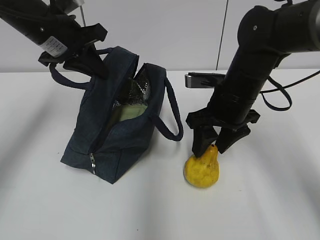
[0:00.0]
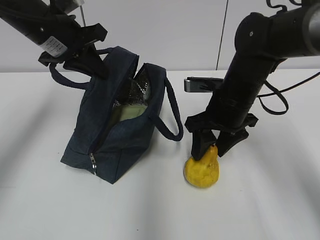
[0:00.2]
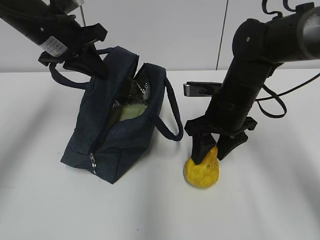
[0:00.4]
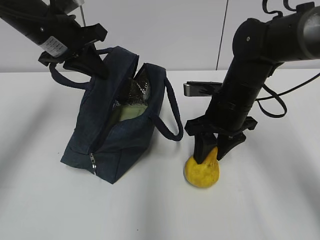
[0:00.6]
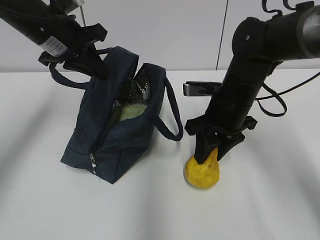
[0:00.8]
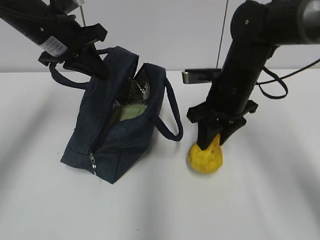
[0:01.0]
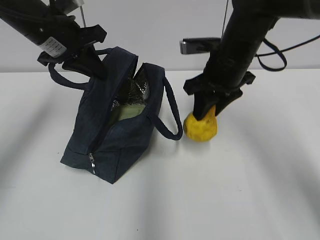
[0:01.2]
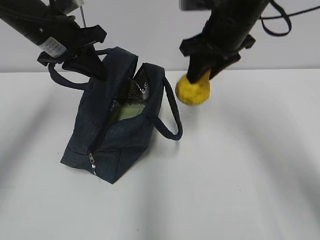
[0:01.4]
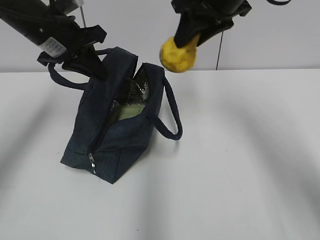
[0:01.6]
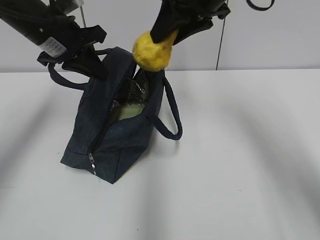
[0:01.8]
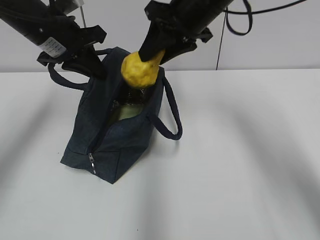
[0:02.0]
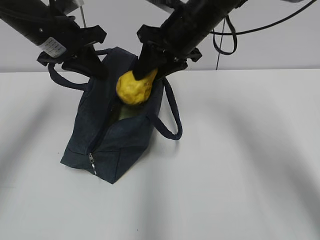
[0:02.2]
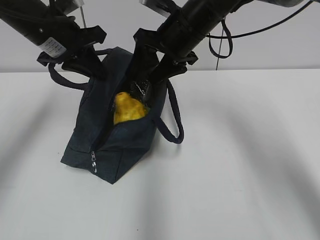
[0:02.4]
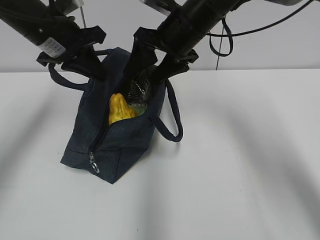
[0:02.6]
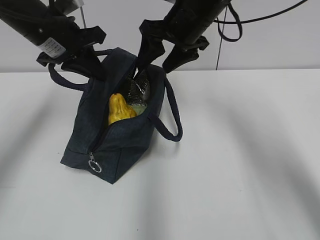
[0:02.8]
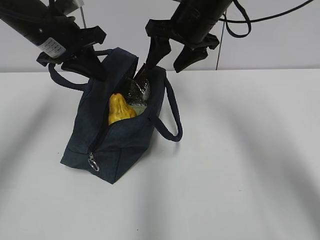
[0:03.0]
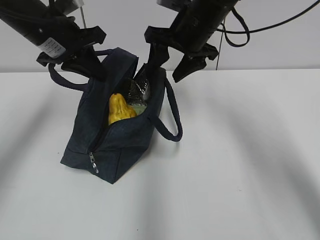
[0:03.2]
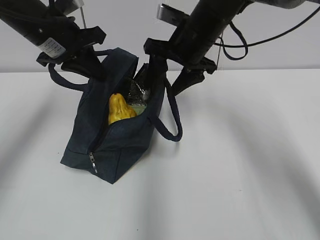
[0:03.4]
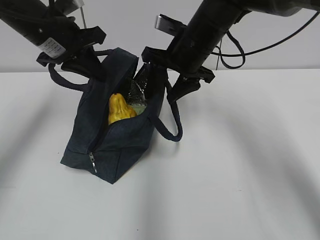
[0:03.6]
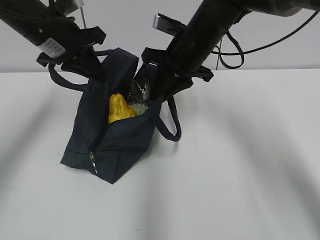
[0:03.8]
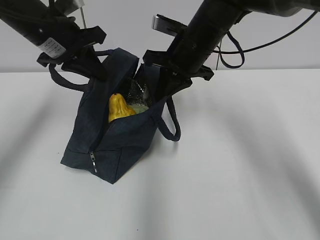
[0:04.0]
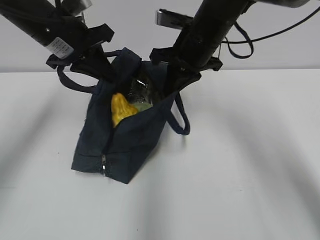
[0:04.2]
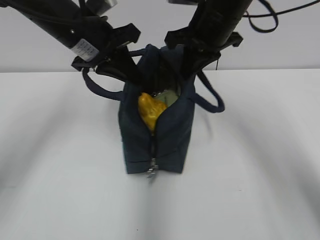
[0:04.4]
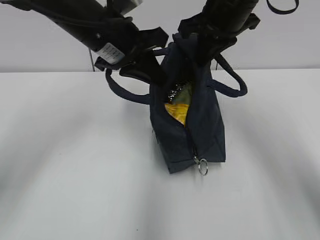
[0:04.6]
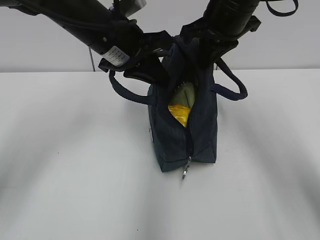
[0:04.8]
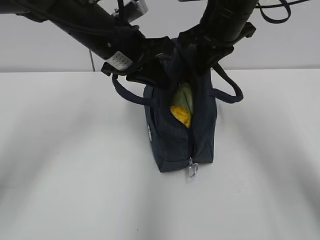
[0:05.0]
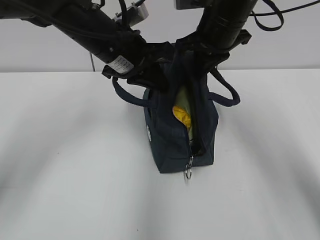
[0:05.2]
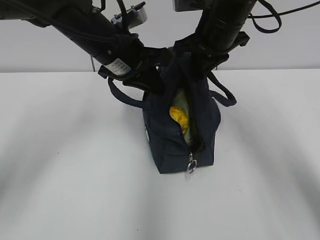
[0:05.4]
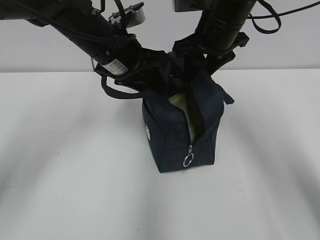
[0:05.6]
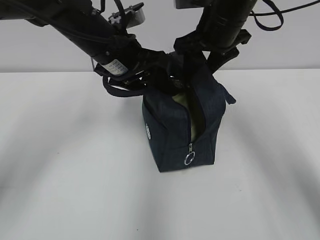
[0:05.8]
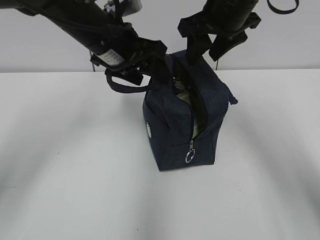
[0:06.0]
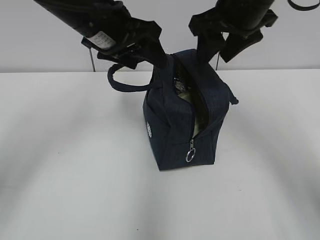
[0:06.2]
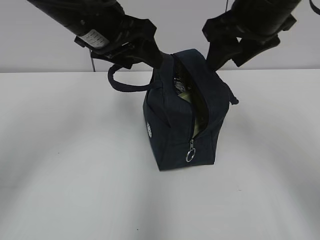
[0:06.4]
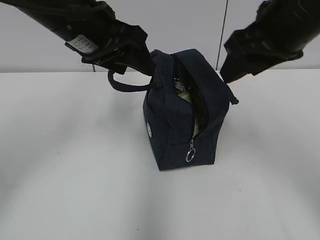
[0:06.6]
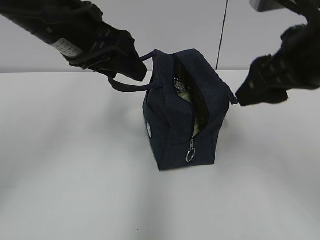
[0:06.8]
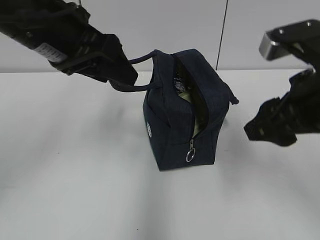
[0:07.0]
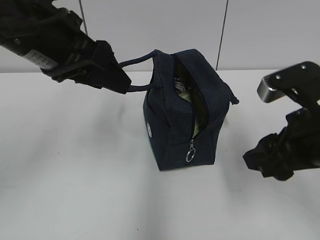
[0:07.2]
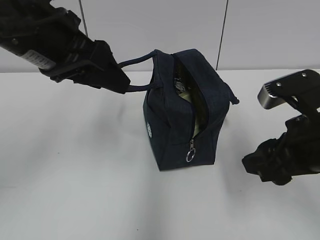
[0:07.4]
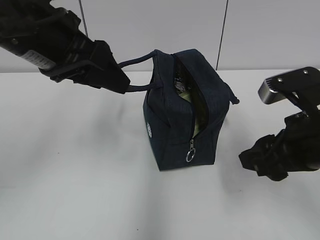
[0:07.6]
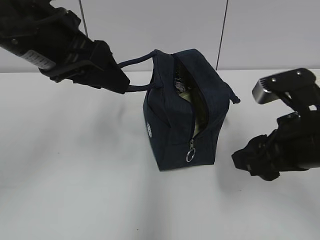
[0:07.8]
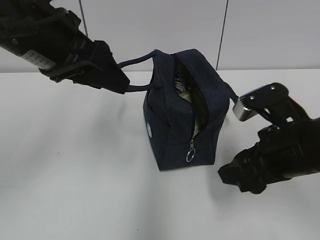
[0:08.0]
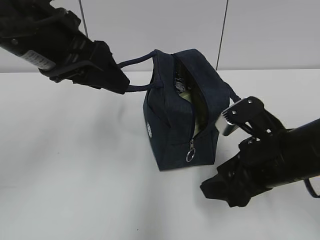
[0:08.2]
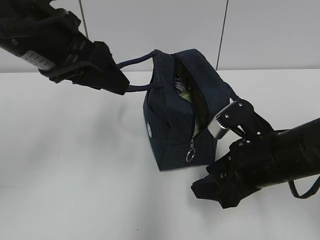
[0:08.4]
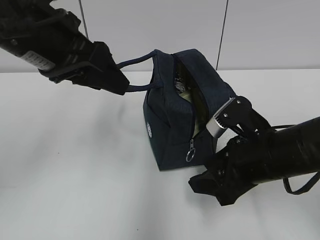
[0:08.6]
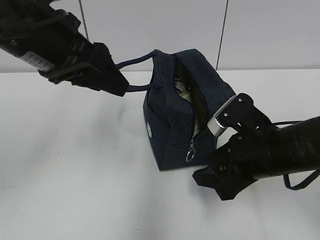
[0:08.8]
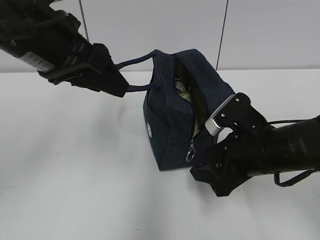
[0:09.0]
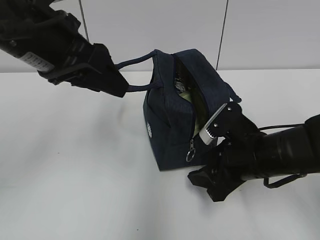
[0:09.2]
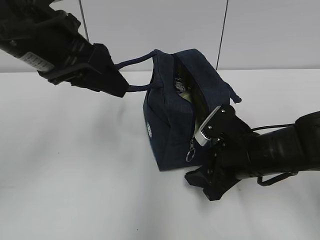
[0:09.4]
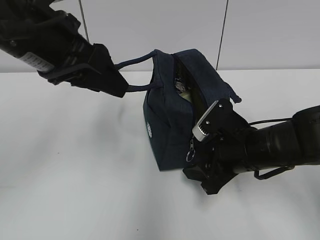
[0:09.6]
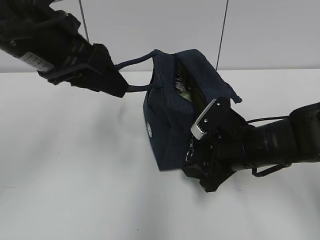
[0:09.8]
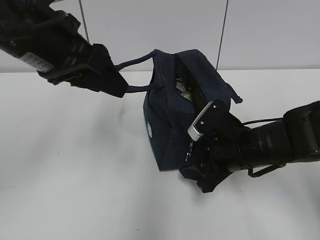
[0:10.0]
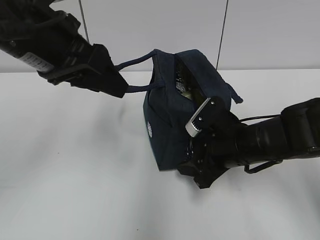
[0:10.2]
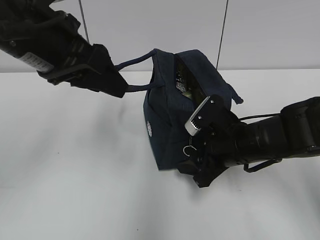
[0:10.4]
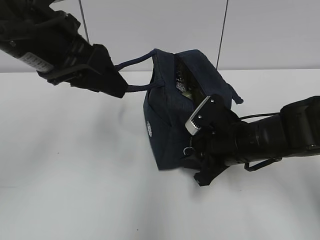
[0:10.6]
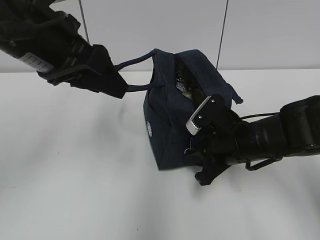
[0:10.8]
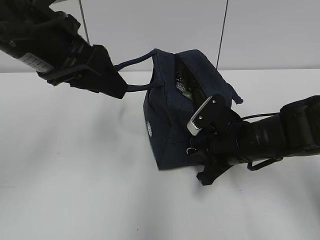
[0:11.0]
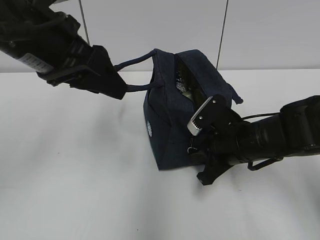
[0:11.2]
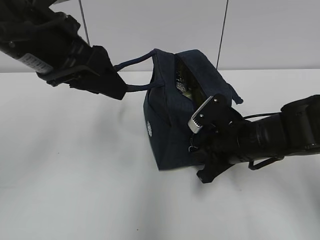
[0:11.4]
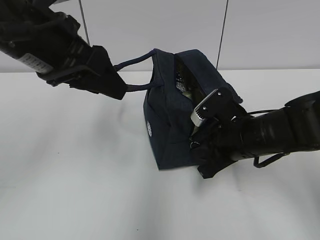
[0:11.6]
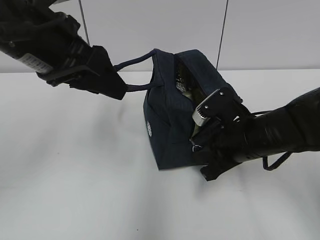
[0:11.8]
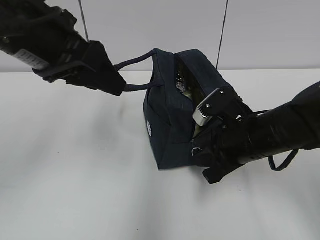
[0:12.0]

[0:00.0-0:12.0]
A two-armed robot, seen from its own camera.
Step, 0:02.8 to 0:04.0: Grab the lunch bag with your right hand.
Step, 0:04.2 to 0:05.8: Move the lunch bag to the right.
0:00.0 to 0:01.6: The right gripper is displaced upward by some 15 cm.
0:01.6 to 0:03.0: The right gripper travels downward by roughly 5 cm, and opens its fingers.
0:03.0 to 0:04.4: The left gripper goes about 5 cm to the right. Meanwhile the right gripper closes its fingers.
0:04.4 to 0:06.0: The left gripper opens up; the right gripper opens its fingers.
0:06.0 to 0:07.6: The left gripper shifts some 15 cm backward, to the left and upward. The right gripper heads backward and downward, covering some 20 cm.
0:07.6 to 0:09.0: The right gripper travels downward by approximately 5 cm.
0:09.0 to 0:10.4: The right gripper ends up roughly 5 cm from where it was.
0:10.4 to 0:12.0: The right gripper closes its fingers.

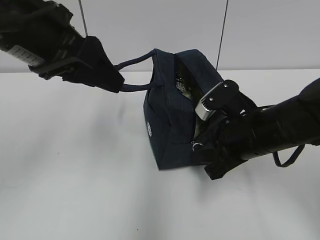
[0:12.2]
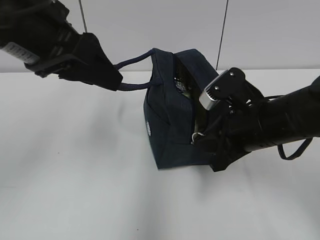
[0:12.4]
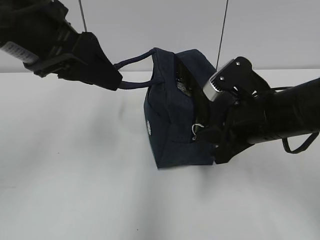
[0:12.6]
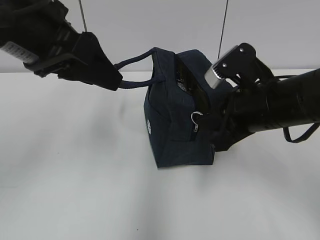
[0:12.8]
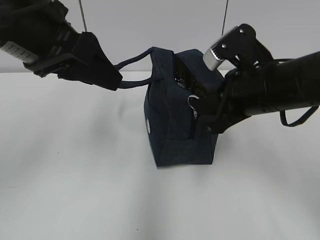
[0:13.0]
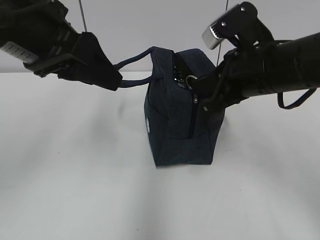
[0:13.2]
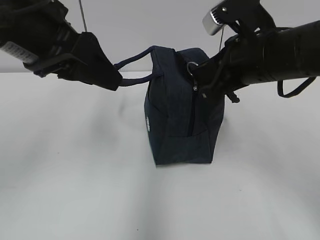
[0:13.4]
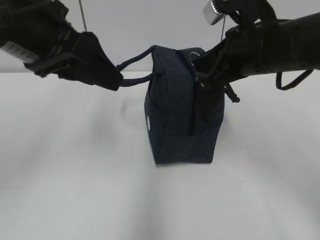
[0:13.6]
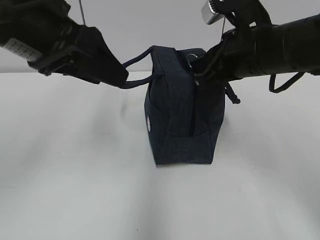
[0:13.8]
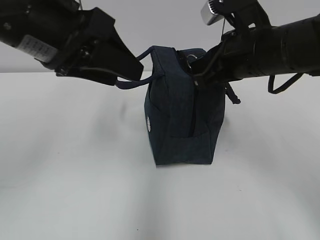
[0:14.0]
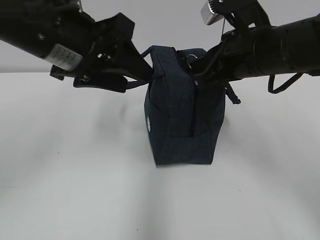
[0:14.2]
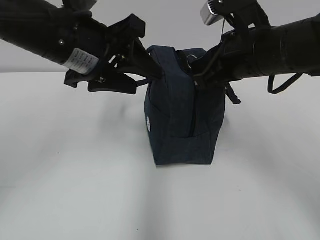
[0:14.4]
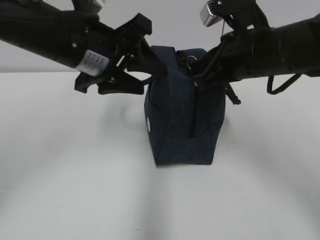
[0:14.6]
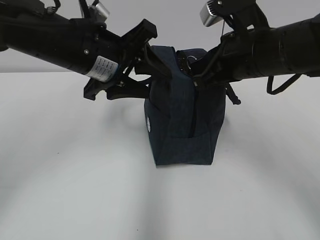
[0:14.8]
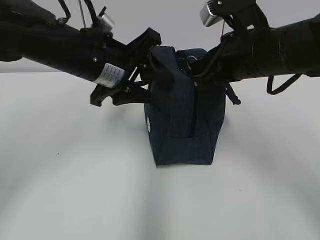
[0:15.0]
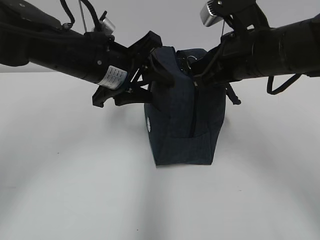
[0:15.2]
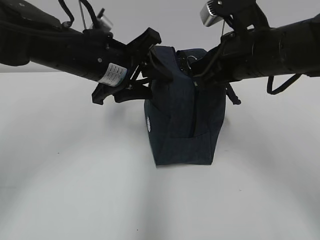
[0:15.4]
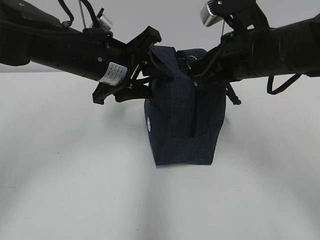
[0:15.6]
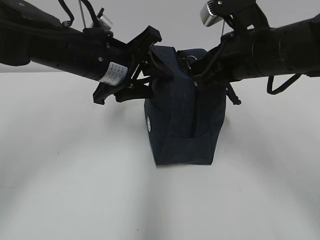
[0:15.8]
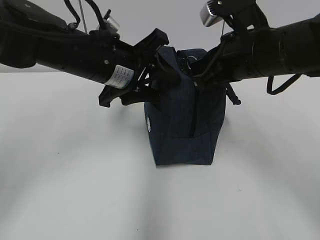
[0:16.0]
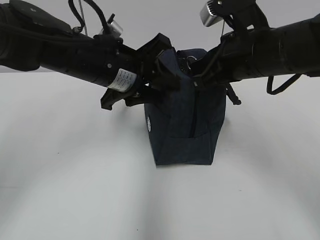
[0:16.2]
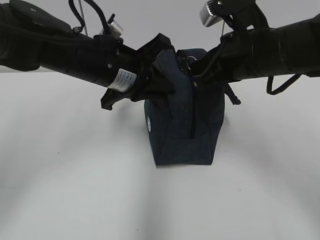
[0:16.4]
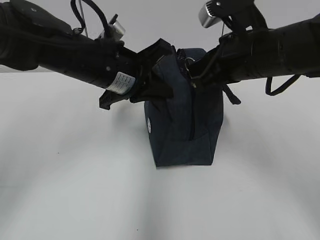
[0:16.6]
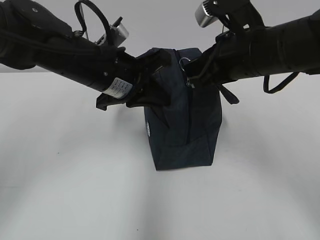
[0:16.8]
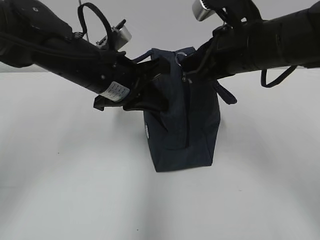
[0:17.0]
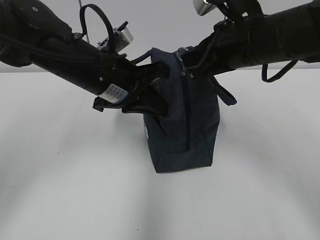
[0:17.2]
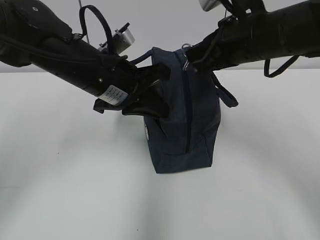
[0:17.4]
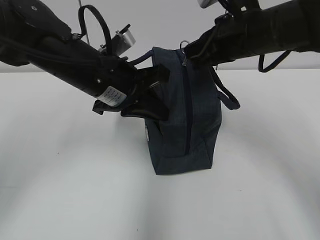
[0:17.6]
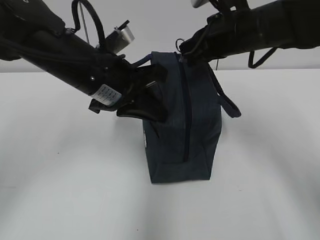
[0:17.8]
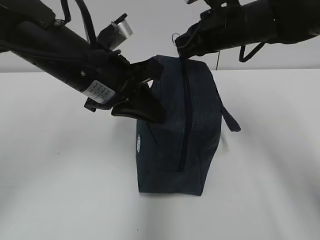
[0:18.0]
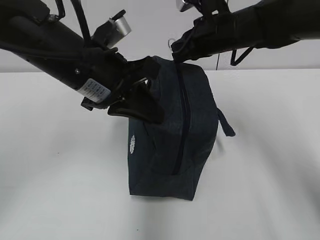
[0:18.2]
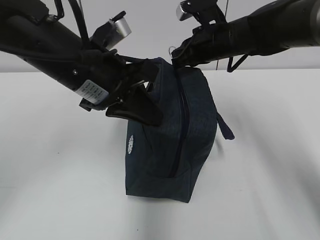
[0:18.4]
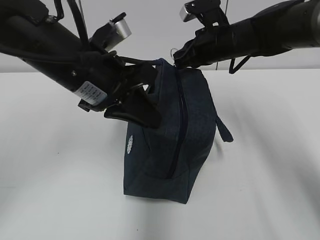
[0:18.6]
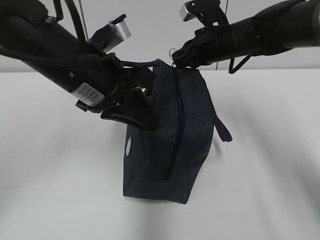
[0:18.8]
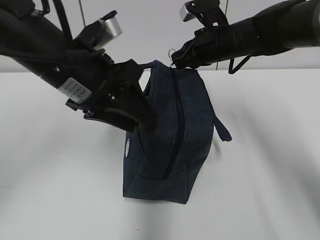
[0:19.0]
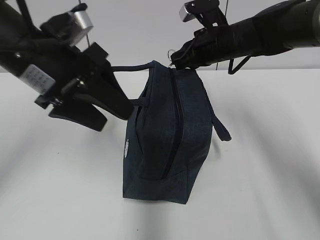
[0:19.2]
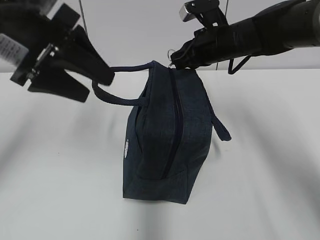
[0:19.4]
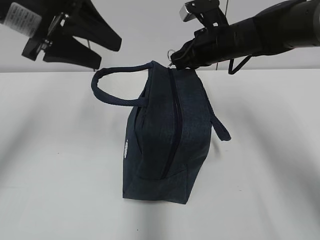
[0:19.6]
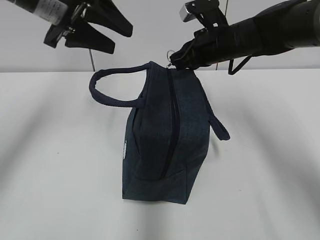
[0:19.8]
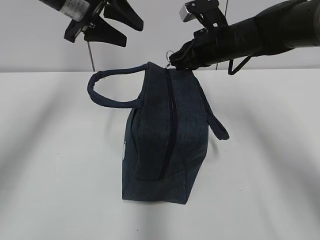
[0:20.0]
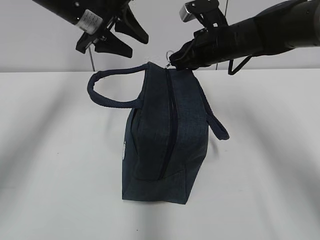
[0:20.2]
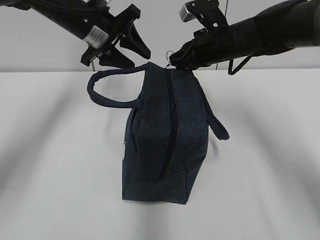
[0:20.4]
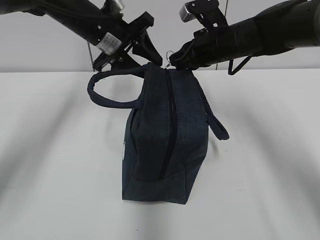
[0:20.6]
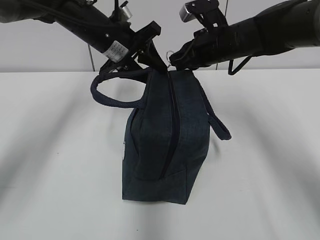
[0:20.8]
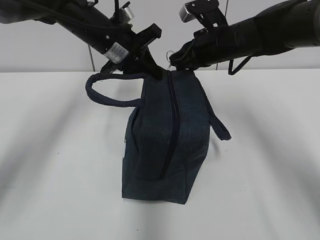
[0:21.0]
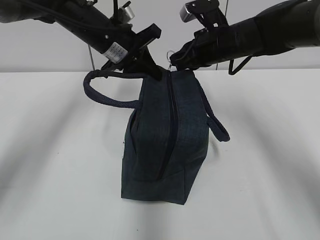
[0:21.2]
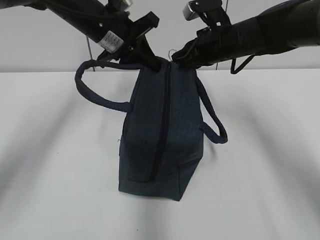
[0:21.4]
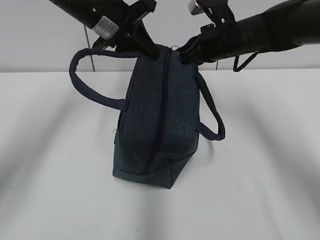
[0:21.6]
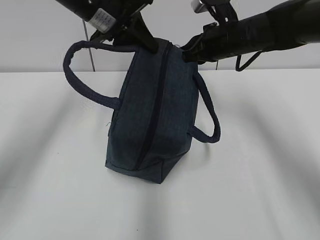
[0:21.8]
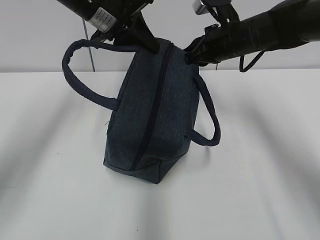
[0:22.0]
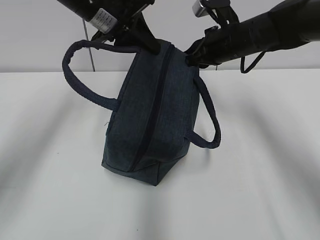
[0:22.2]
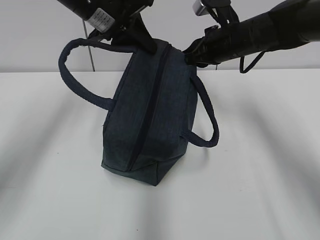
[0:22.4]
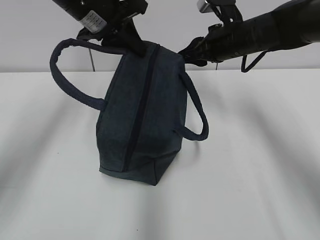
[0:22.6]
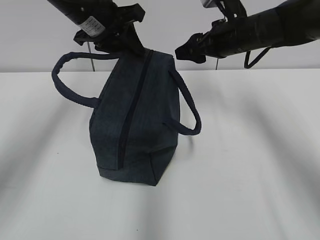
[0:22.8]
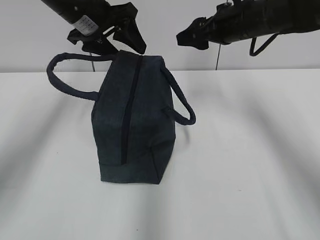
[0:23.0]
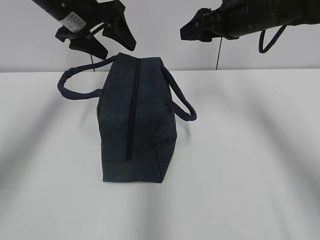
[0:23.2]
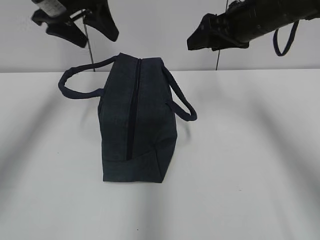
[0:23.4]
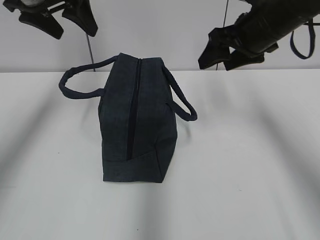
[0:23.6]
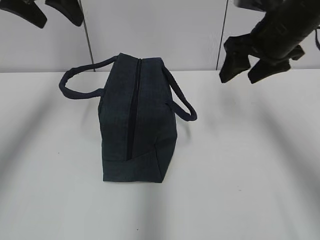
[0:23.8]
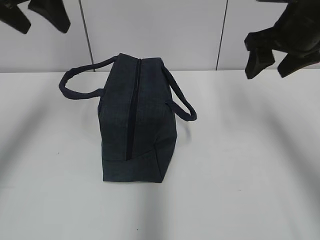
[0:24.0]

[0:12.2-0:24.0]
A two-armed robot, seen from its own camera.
Step, 0:12.2 to 0:16.6: Grab the lunch bag with your left hand.
Step, 0:16.8 to 0:22.4: Pull the zipper with your right hand.
Step, 0:22.6 to 0:22.8: Grab the lunch bag with your left hand.
0:12.2 to 0:13.6: The right gripper moves upward, some 10 cm.
0:13.6 to 0:15.2: The left gripper is displaced downward, forward and to the right by approximately 15 cm.
0:15.2 to 0:16.6: The left gripper closes up.
0:16.6 to 0:18.2: The right gripper is displaced forward by approximately 10 cm. Meanwhile the left gripper ends up approximately 5 cm from where it was.
0:18.2 to 0:19.6: The left gripper moves to the left and upward, roughly 10 cm, and opens up.
0:19.6 to 0:21.0: The left gripper heads forward, downward and to the right, covering approximately 20 cm, and closes.
0:21.0 to 0:22.6: The left gripper heads upward, covering about 5 cm; the right gripper opens up.
0:22.6 to 0:24.0: The right gripper goes roughly 10 cm backward, upward and to the right, and opens up; the left gripper moves to the left and upward, some 10 cm, and opens its fingers.
